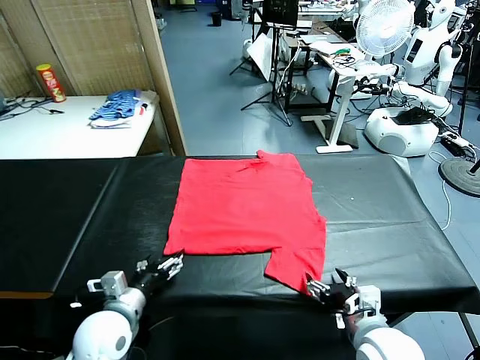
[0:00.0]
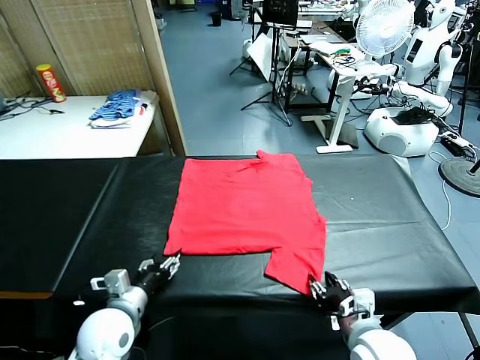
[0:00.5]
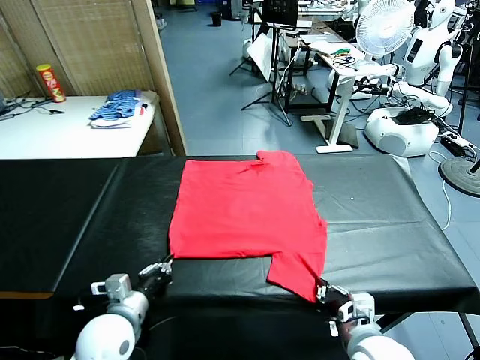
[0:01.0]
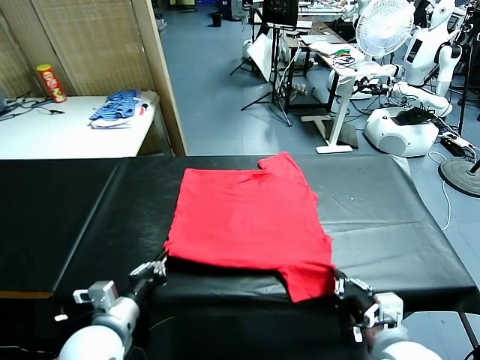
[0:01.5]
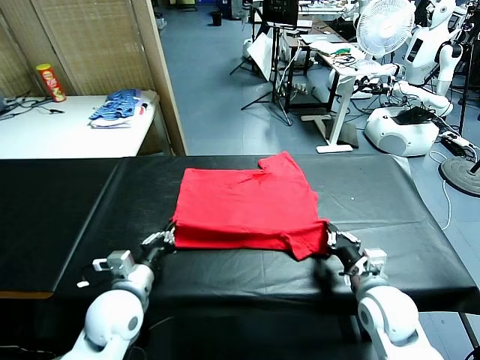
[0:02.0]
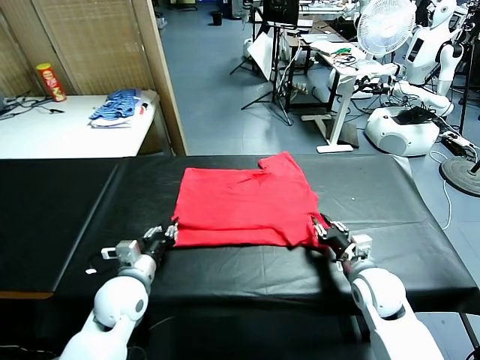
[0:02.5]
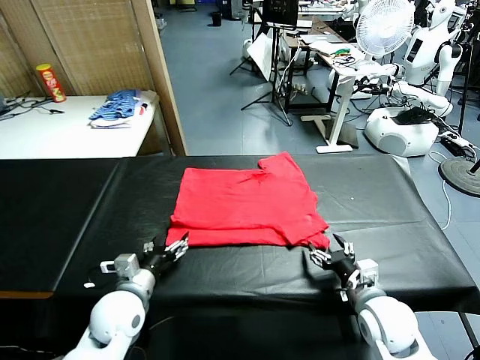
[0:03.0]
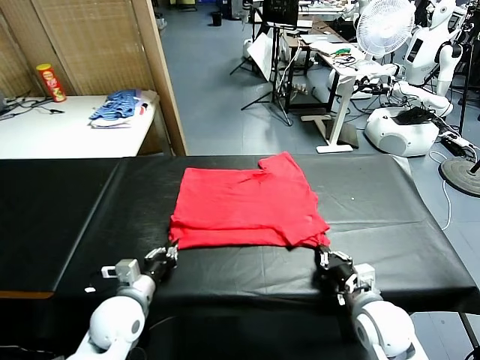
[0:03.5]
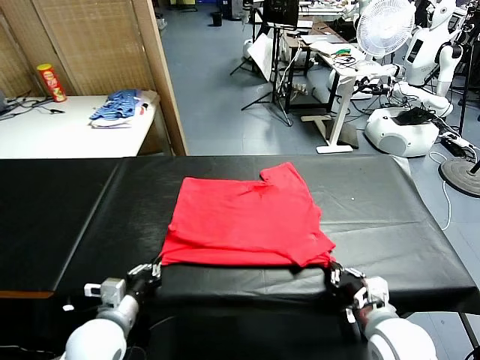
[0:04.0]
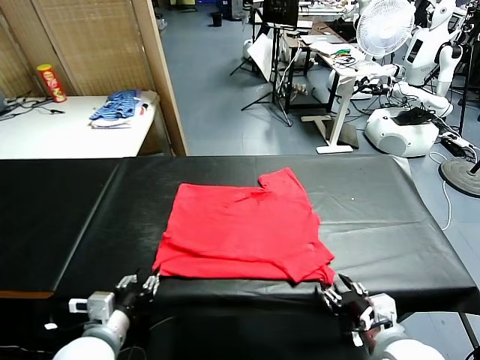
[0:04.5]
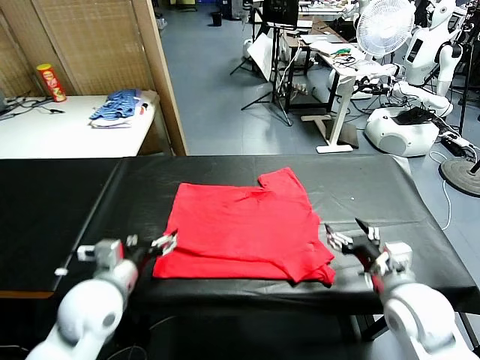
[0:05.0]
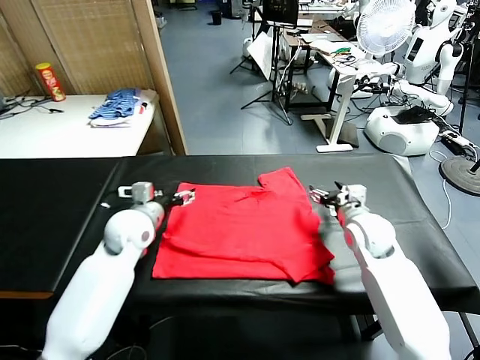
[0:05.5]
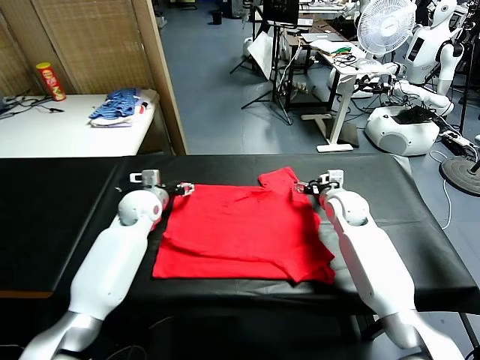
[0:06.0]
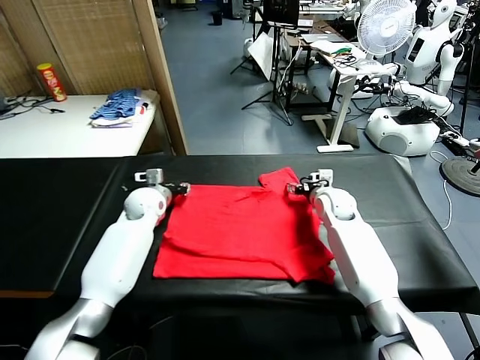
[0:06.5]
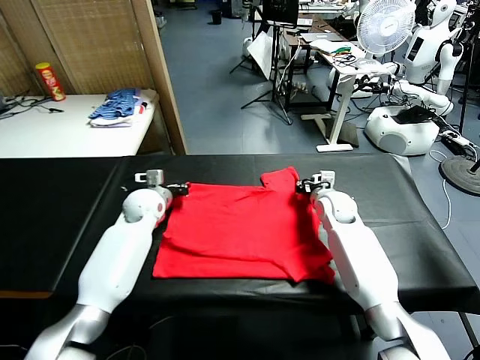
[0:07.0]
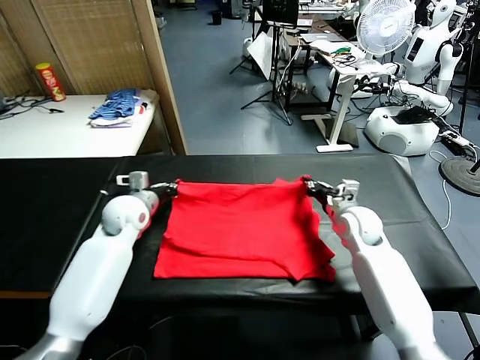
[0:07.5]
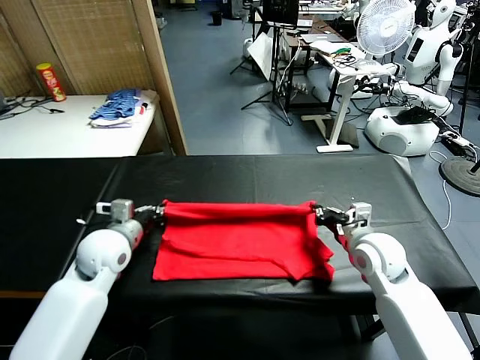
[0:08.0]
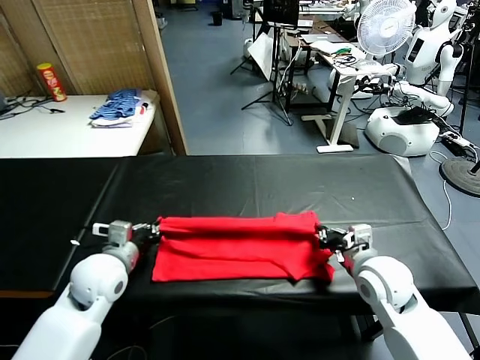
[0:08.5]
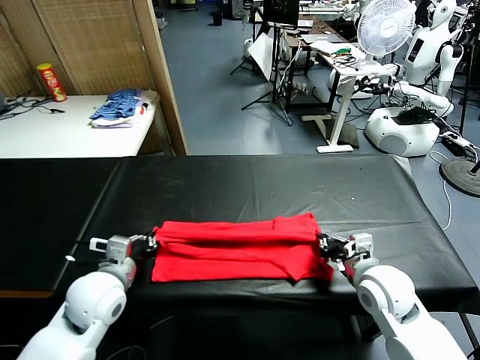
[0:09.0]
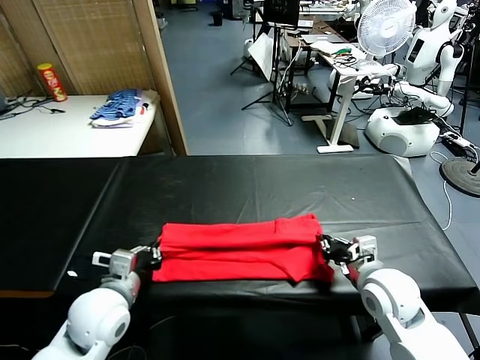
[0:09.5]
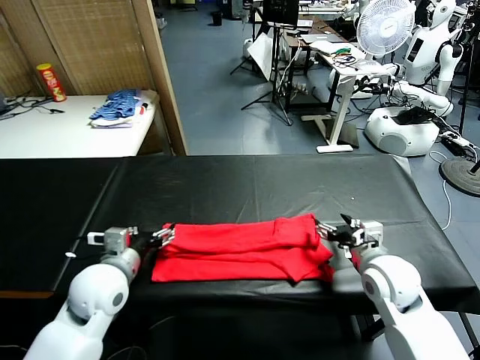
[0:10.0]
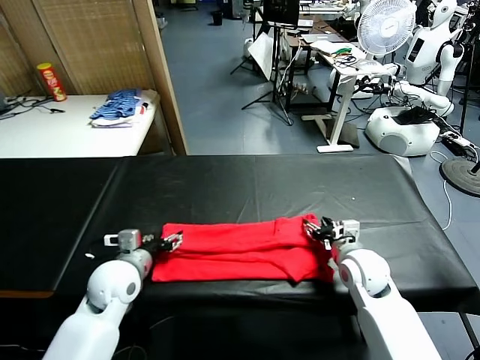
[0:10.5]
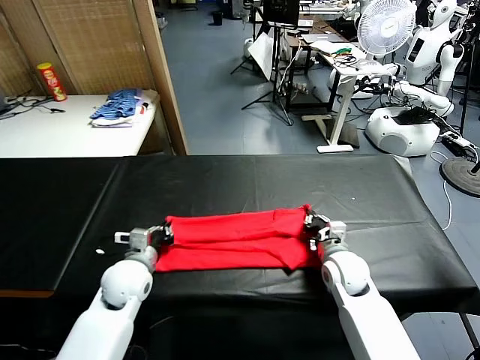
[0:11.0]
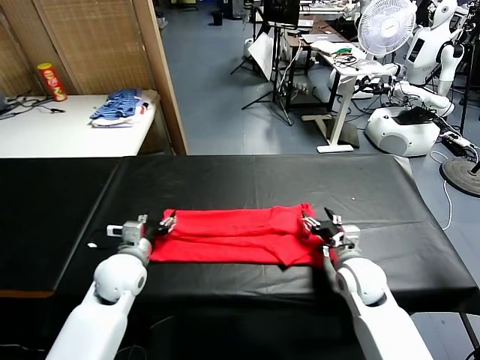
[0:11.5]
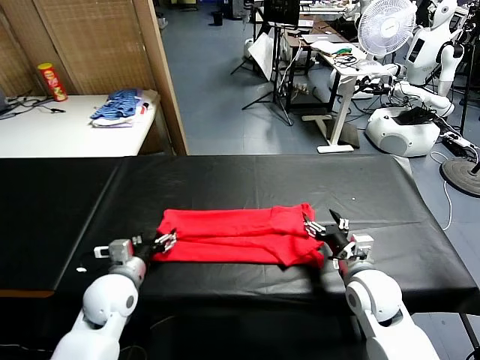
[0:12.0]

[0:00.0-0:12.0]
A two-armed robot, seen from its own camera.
Task of the whole recording: fold and organize the clothes.
Step, 0:00.0 to 0:01.0: use both grippers simultaneously to clamp the lower edge of the clothing fabric.
Step, 0:01.5 to 0:02.5: use both grippers to drag the lower edge of the fabric forward and fold it over the upper edge.
Step, 0:03.0 to 0:04.5: Drag the clothes downward with both gripper.
Step, 0:05.0 to 0:07.0: use both grippers simultaneously to clamp the upper edge of the clothing fabric.
Step, 0:07.5 to 0:09.5: use both grippers to drag the upper edge of the fabric backward and fold it over the lower edge.
0:02.0 to 0:04.0: The right gripper is displaced backward by roughly 15 cm, and opens, then closes again, while the left gripper is displaced backward by about 5 cm, and opens, then closes again.
0:04.0 to 0:06.0: The two grippers go about 35 cm forward. The right gripper opens up. Meanwhile the left gripper opens its fingers.
0:06.0 to 0:08.0: The grippers both shift backward by roughly 15 cm. The left gripper closes. The right gripper closes.
0:08.0 to 0:10.0: The left gripper shifts about 5 cm backward, and opens up. The right gripper opens up.
0:10.0 to 0:12.0: The left gripper moves downward, about 5 cm, and closes, then reopens, while the right gripper closes, then reopens.

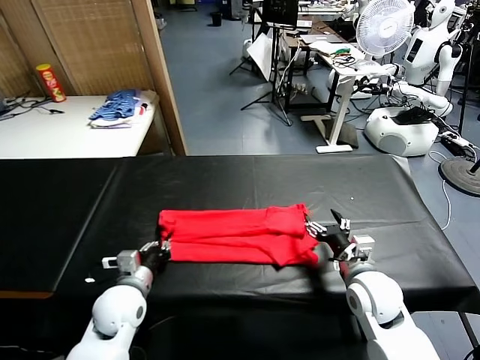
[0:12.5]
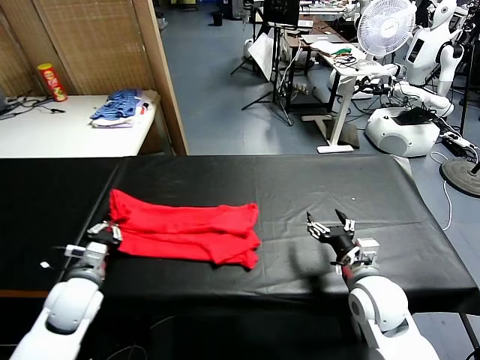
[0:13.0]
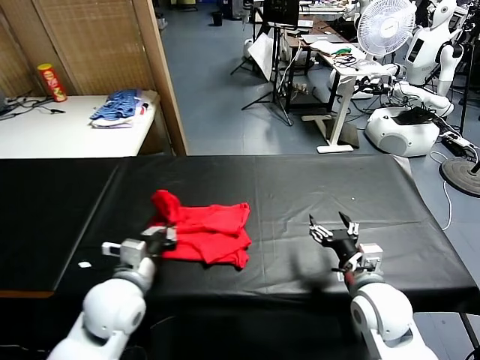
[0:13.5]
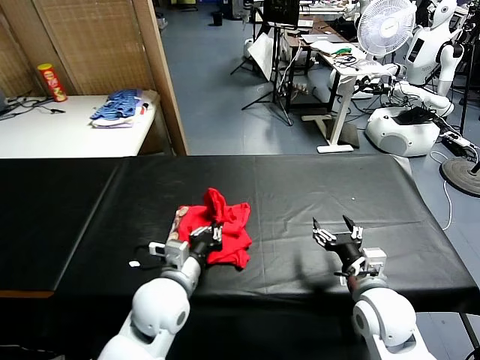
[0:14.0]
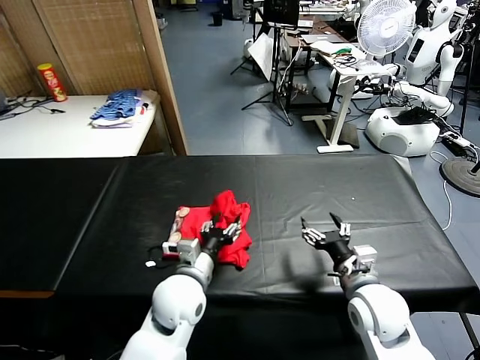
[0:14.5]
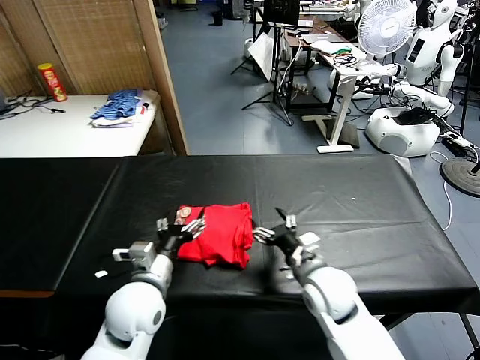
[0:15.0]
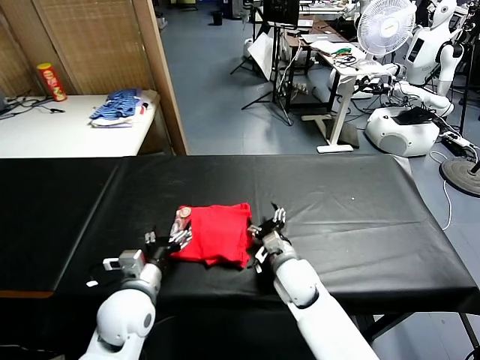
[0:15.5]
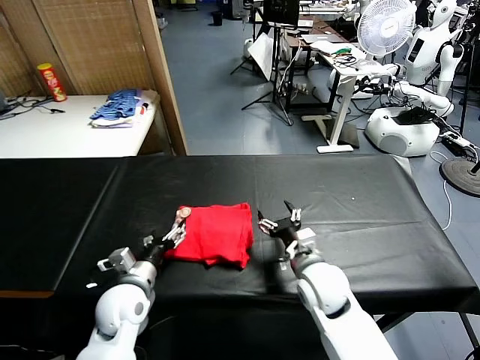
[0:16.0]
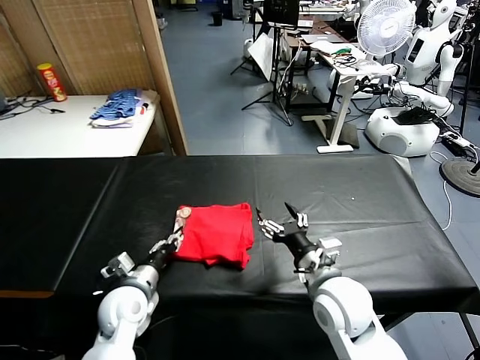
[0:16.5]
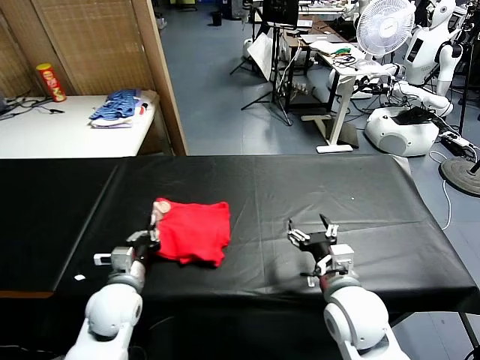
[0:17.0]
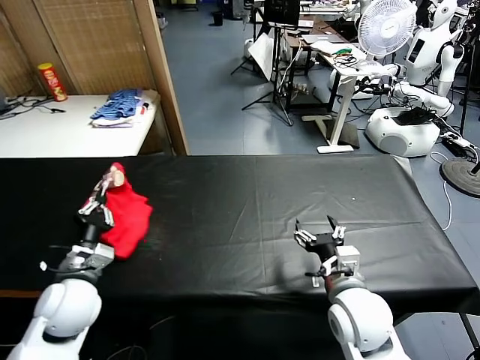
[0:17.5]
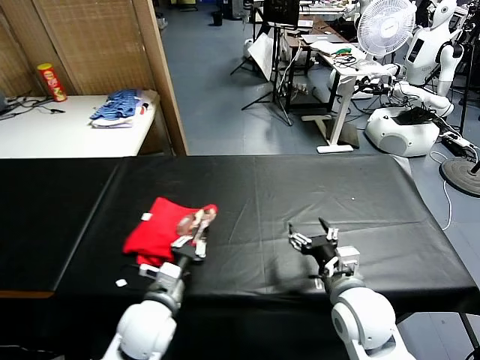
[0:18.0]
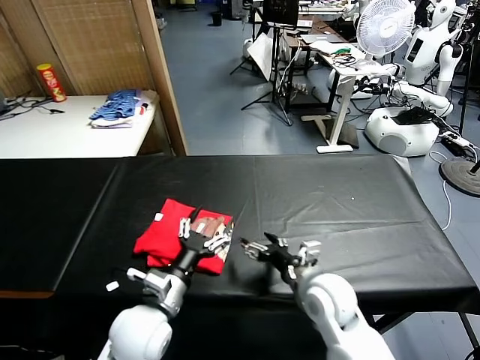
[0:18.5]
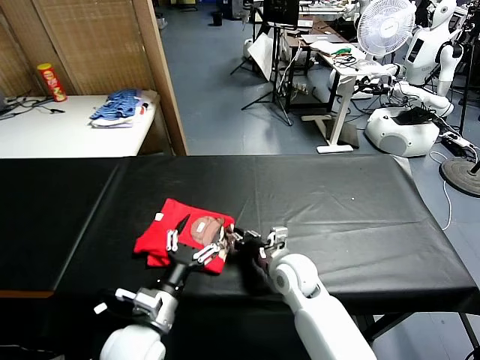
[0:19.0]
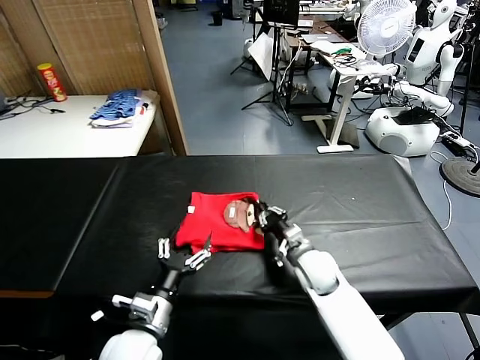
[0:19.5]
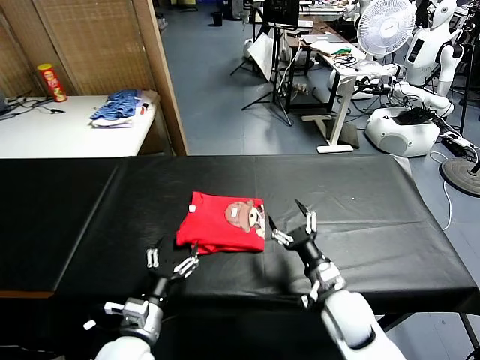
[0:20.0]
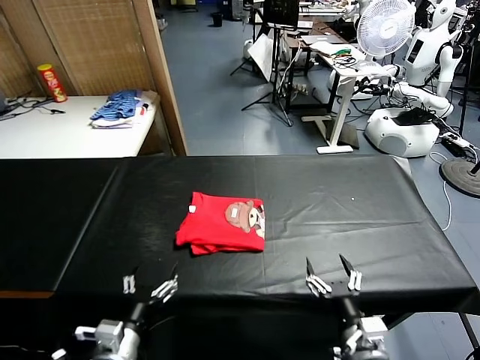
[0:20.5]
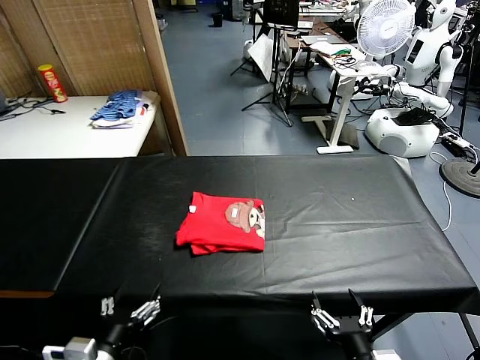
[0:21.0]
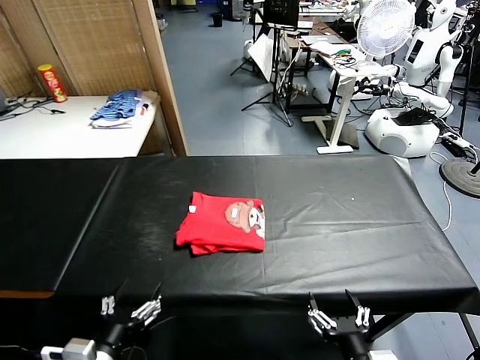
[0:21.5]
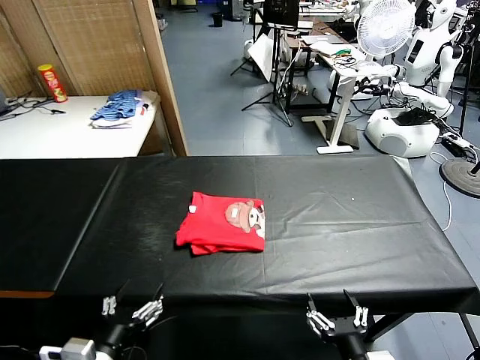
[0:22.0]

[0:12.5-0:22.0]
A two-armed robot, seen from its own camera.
Task of the whole recording: fold and organize the clothes.
Step, 0:13.0 to 0:14.5: use the left gripper to drag the left edge of the fabric to the left and folds it over the right edge.
Step, 0:15.0 to 0:18.0: Flip the folded clothes over with left gripper.
Step, 0:18.5 to 0:19.5: Drag the clothes to the center of the table.
0:12.5 to 0:14.5: The left gripper shifts some 15 cm to the right, and opens up.
0:14.5 to 0:16.5: The left gripper shifts about 15 cm to the left and downward; the right gripper heads to the left, covering some 5 cm.
0:16.5 to 0:18.0: The left gripper goes about 5 cm to the right.
0:18.0 to 0:20.0: The left gripper moves backward, roughly 5 cm, and opens its fingers, while the right gripper is displaced downward by about 10 cm, reaches some 15 cm forward, then returns, and closes, then opens again.
0:20.0 to 0:22.0: The left gripper shifts about 10 cm backward and upward. The right gripper heads backward and upward, covering some 20 cm.

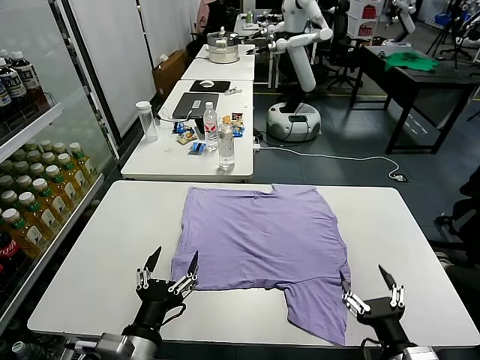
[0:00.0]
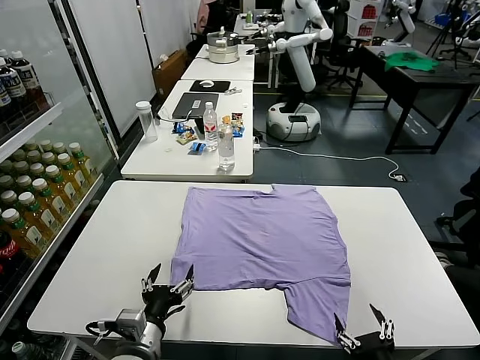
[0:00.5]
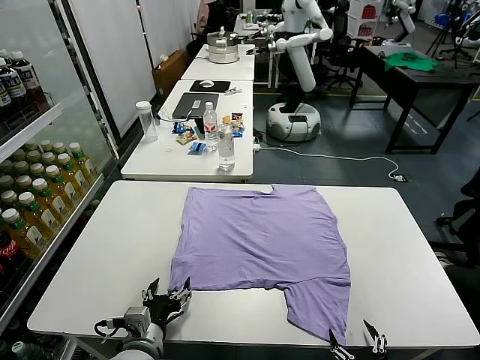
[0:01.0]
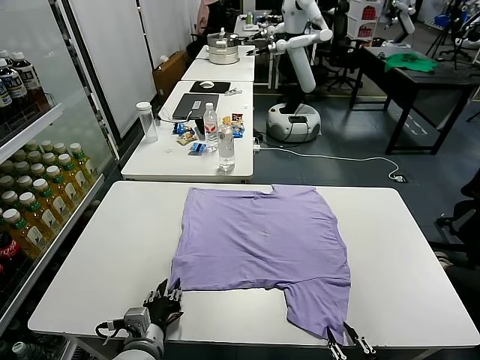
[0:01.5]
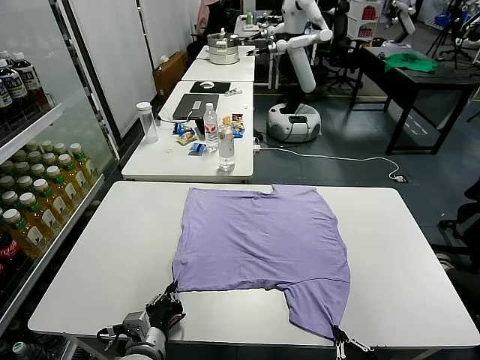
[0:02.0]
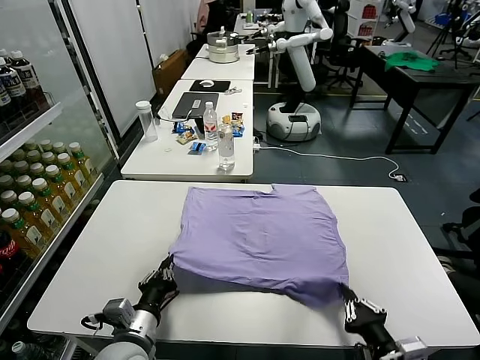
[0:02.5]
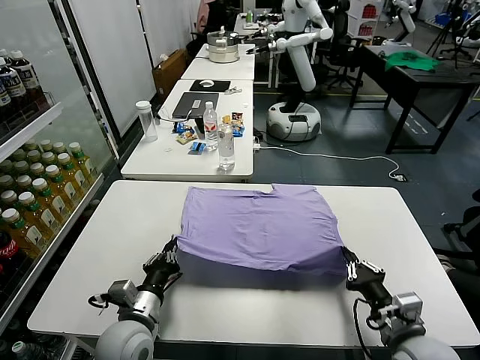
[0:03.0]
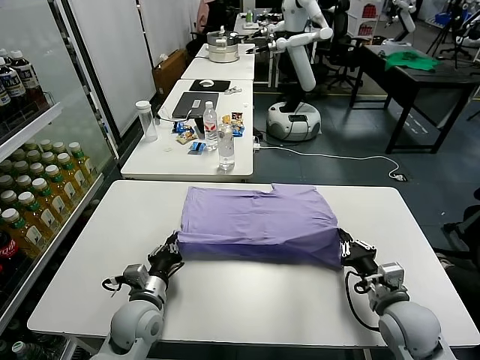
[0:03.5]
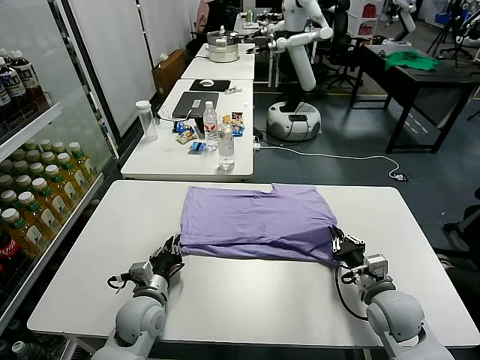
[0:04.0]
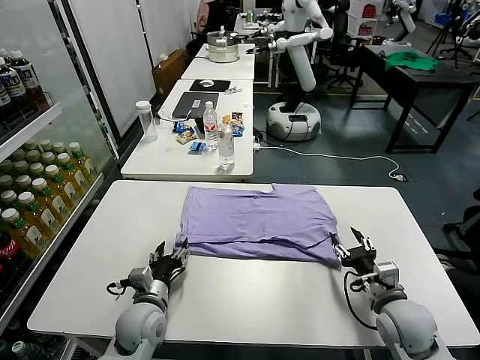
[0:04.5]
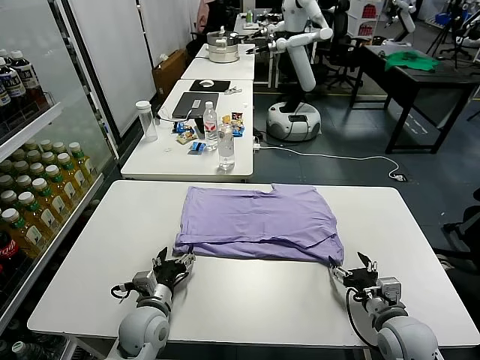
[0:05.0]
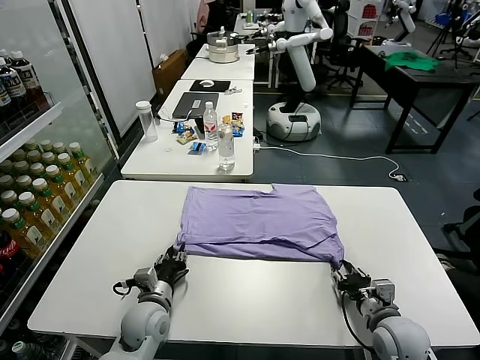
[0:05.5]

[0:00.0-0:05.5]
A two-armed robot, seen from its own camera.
Task of the whole recording: fold and organize the clothes.
Step, 0:00.0 to 0:01.5: use both grippers simultaneously to clamp the lower edge of the clothing fabric.
Step, 0:02.0 to 0:04.0: use both grippers to drag the lower edge of the fabric forward and fold it over the upper edge.
0:02.0 to 0:03.5: The left gripper travels forward by roughly 10 cm; the right gripper goes about 20 cm forward.
0:03.5 to 0:05.5: The right gripper opens, then closes again, while the left gripper opens, then closes again.
